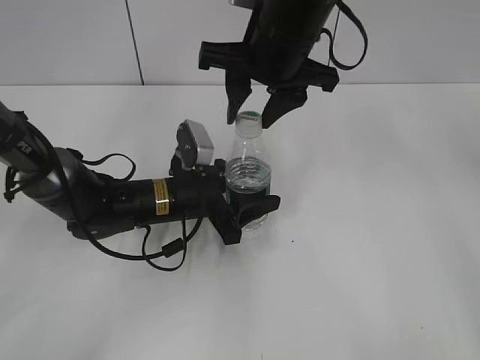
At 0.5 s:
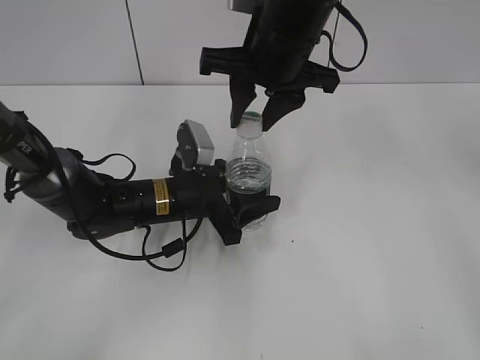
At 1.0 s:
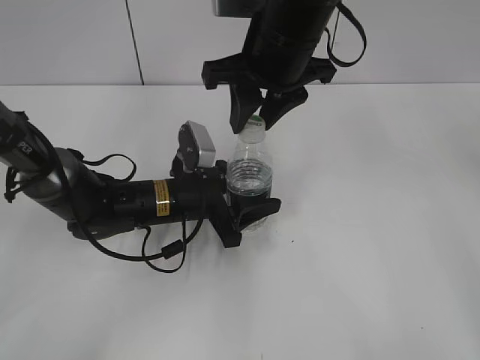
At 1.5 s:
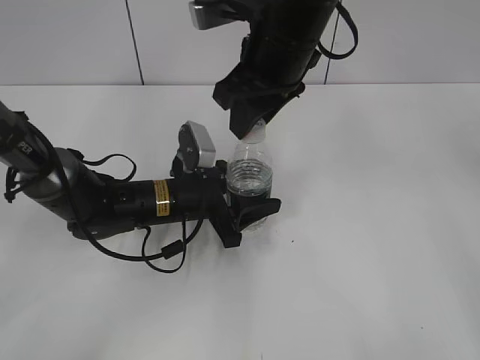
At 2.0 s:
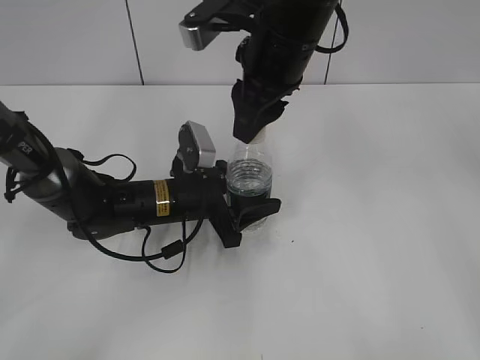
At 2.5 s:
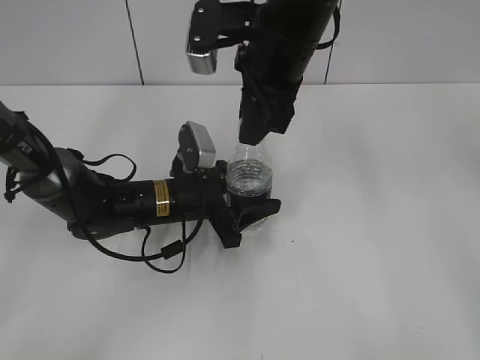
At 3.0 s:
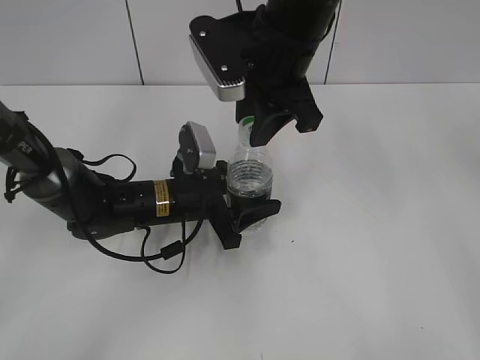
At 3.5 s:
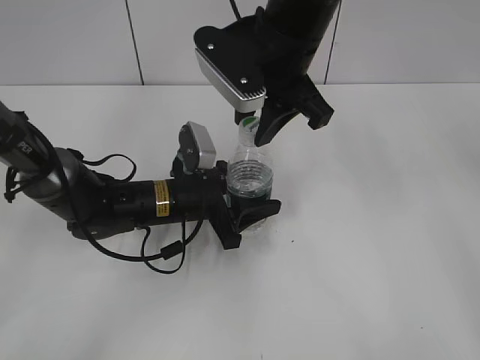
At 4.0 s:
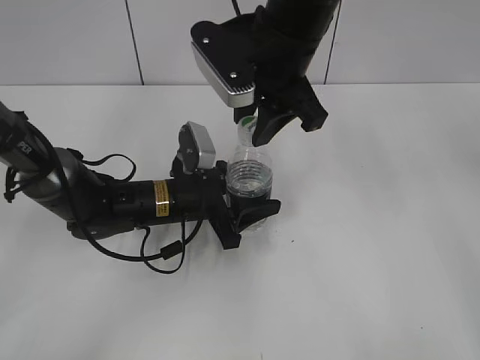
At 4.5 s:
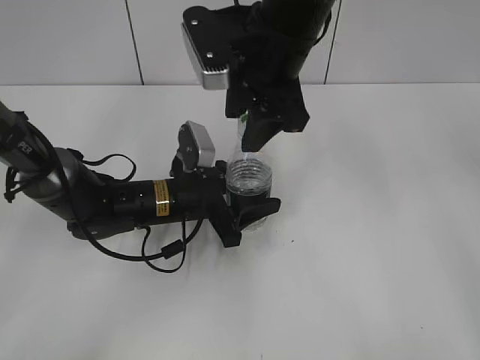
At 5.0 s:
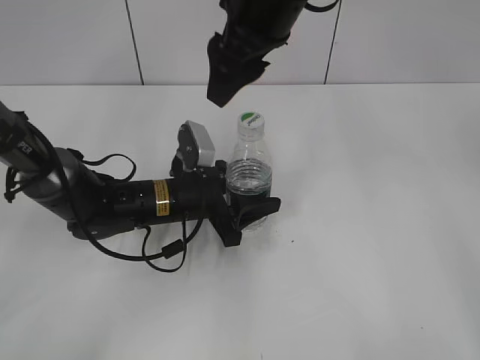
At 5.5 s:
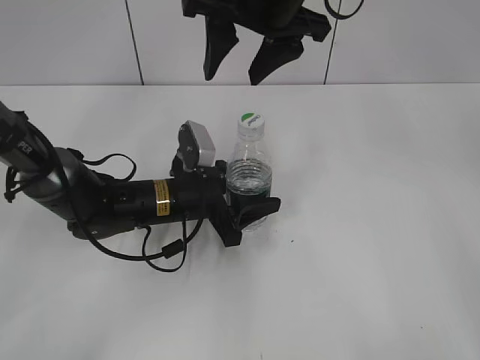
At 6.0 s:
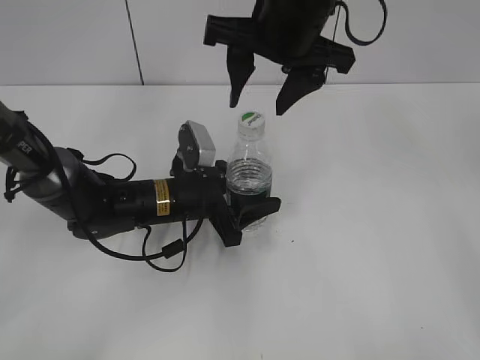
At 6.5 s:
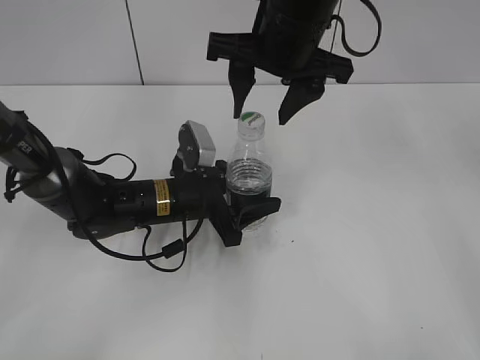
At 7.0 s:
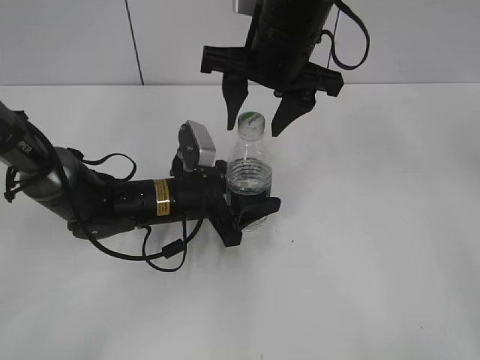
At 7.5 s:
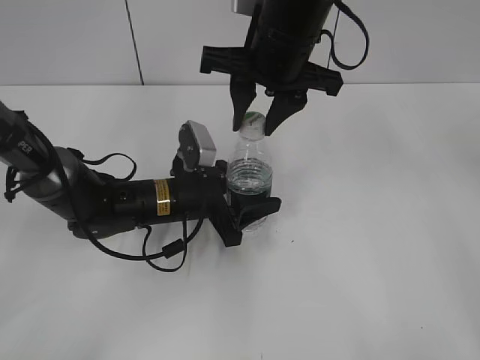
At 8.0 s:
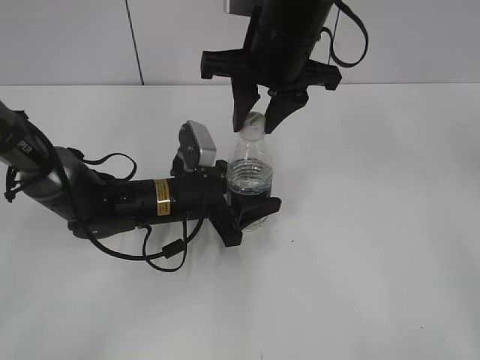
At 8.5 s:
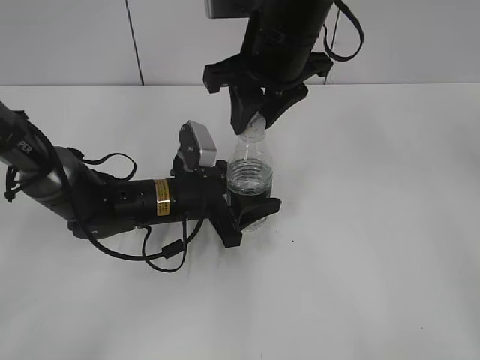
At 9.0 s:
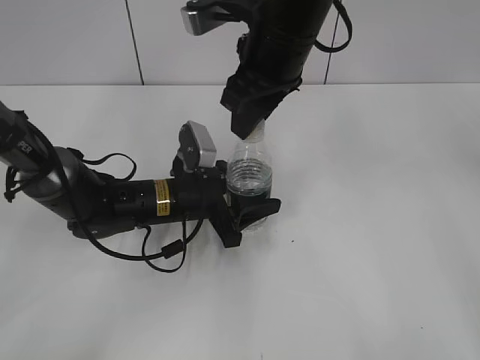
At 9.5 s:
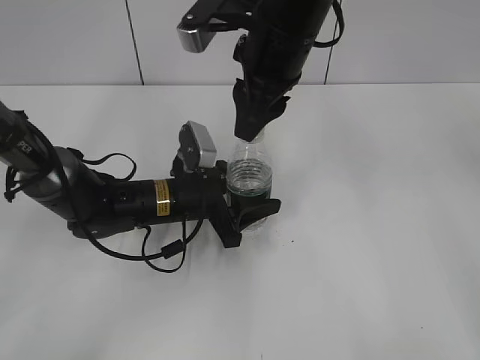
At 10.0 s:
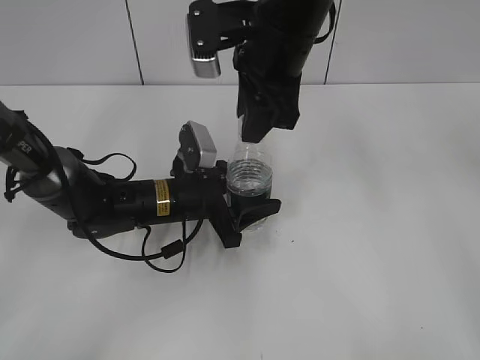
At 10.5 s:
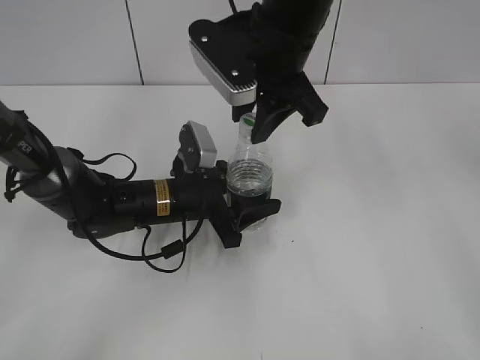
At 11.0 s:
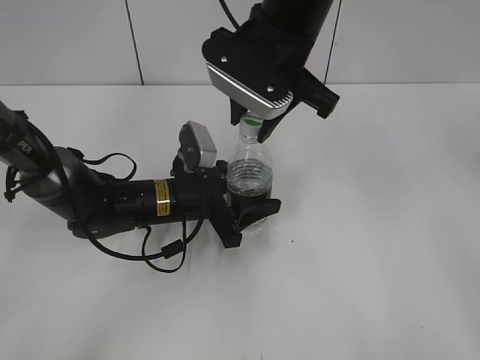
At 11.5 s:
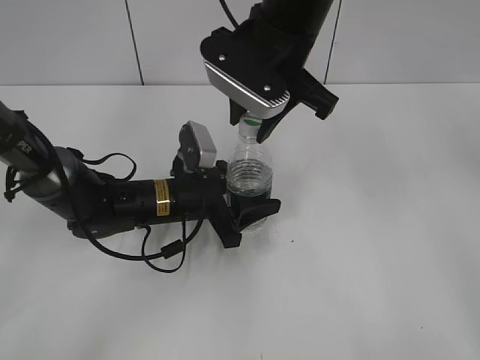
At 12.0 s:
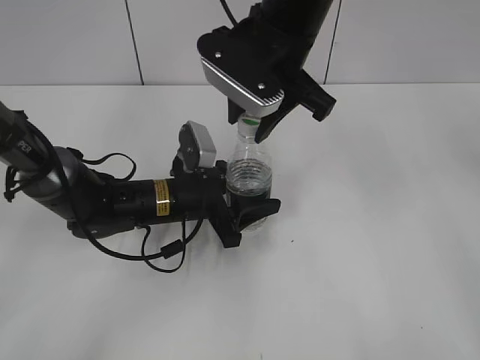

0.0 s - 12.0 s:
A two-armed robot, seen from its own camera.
4.0 s - 6.0 s: The right gripper opens its fingers.
6.0 s - 8.0 s: The right gripper closes its fingers.

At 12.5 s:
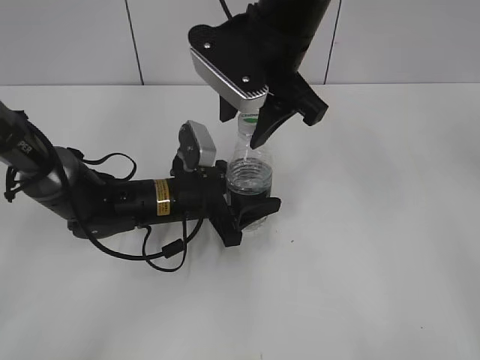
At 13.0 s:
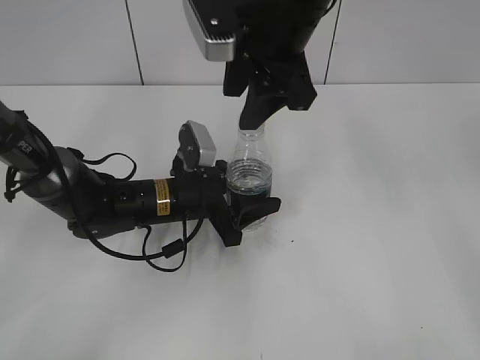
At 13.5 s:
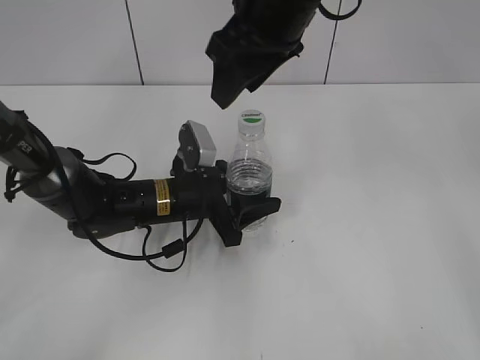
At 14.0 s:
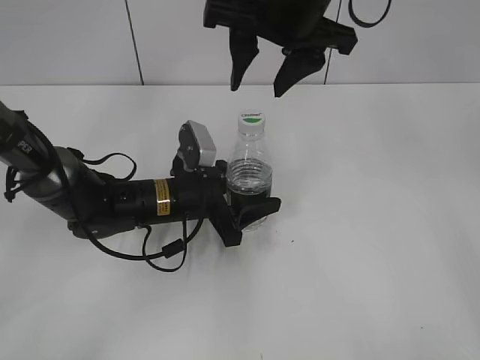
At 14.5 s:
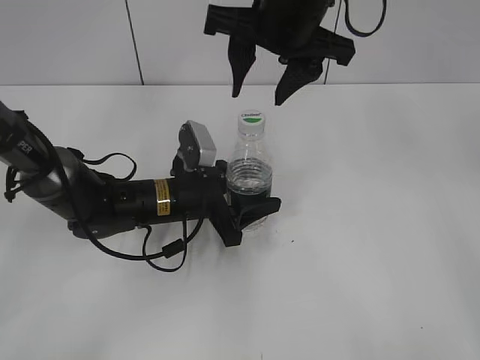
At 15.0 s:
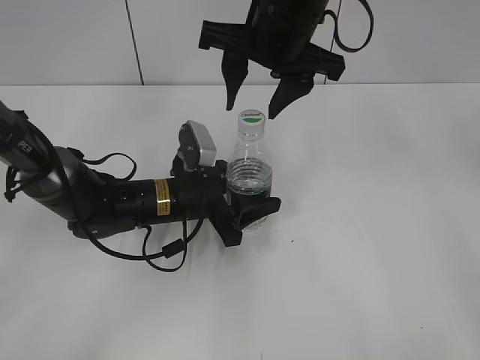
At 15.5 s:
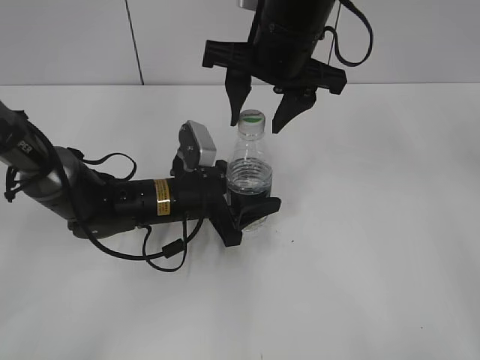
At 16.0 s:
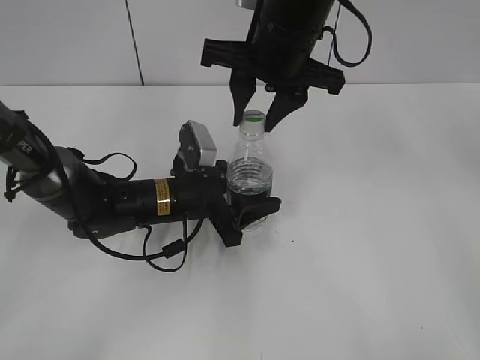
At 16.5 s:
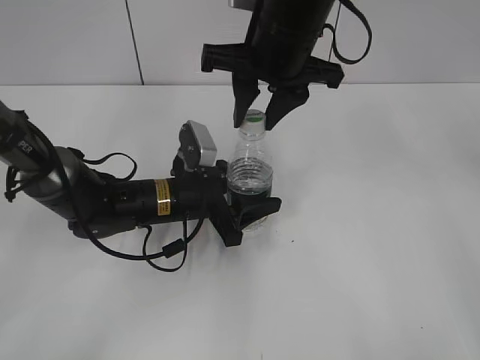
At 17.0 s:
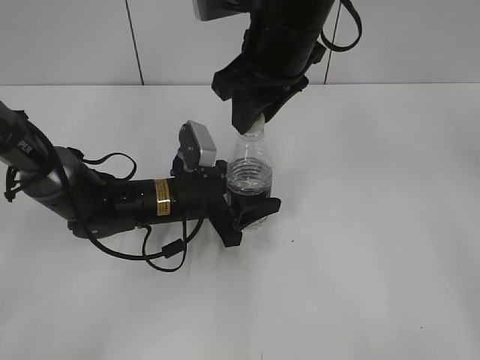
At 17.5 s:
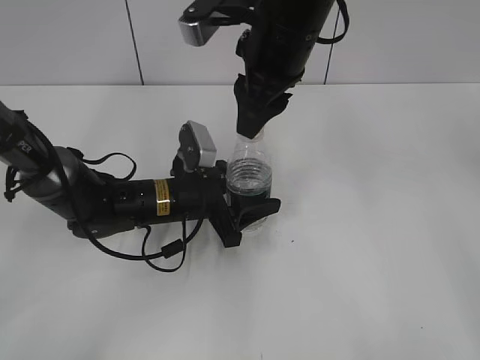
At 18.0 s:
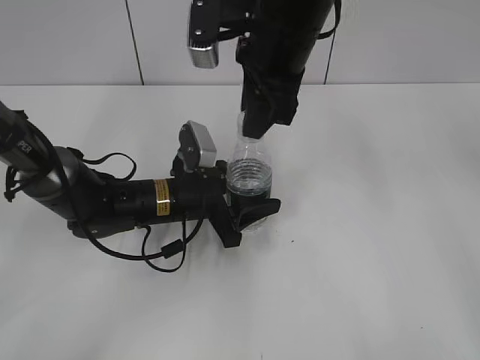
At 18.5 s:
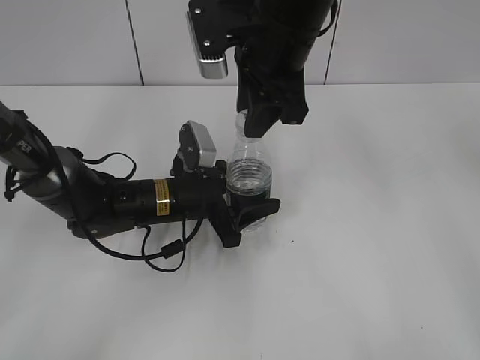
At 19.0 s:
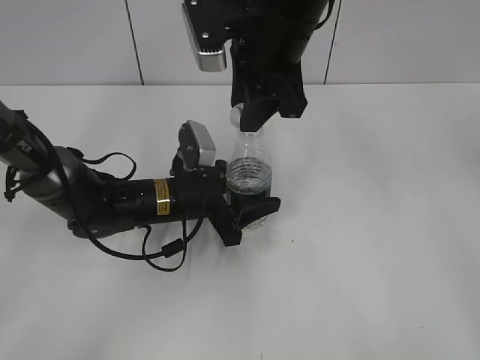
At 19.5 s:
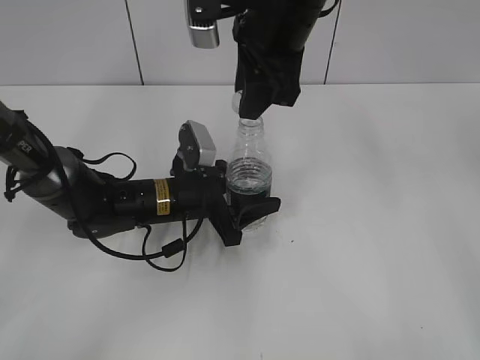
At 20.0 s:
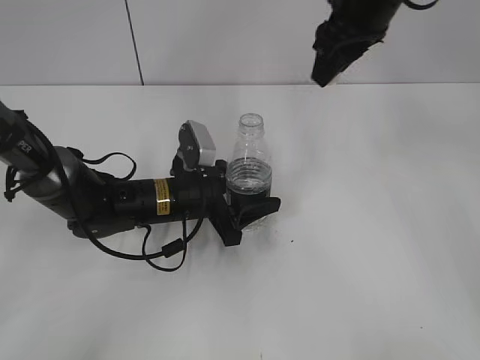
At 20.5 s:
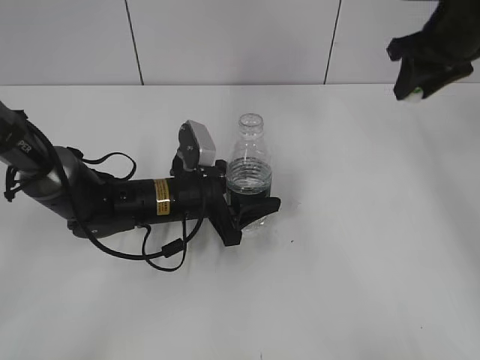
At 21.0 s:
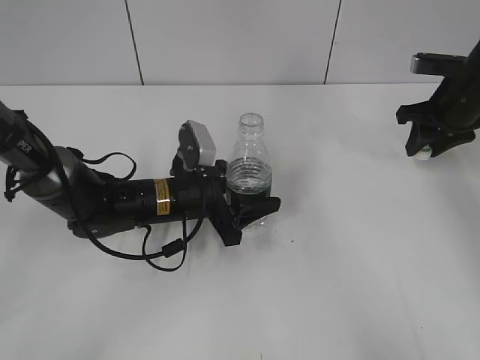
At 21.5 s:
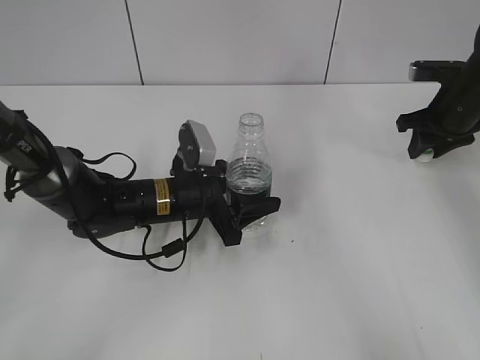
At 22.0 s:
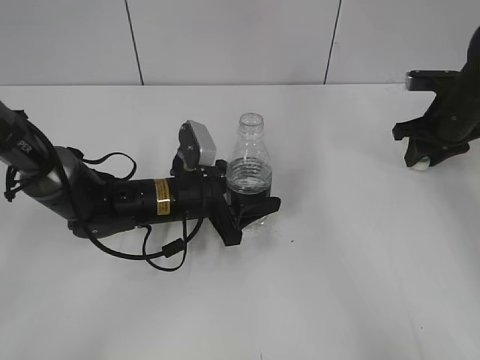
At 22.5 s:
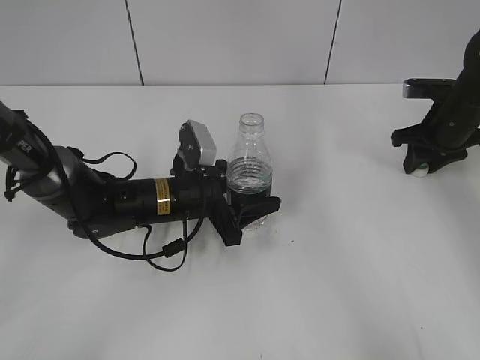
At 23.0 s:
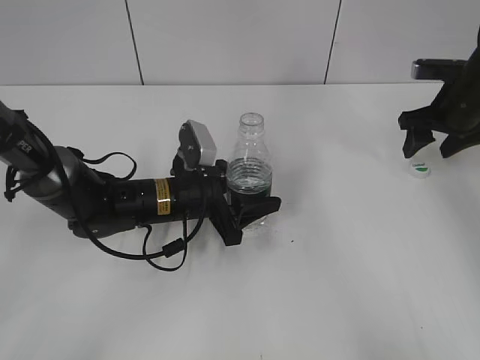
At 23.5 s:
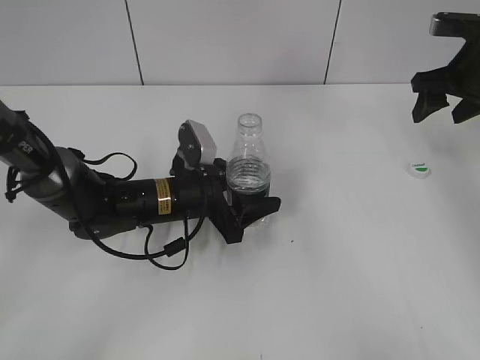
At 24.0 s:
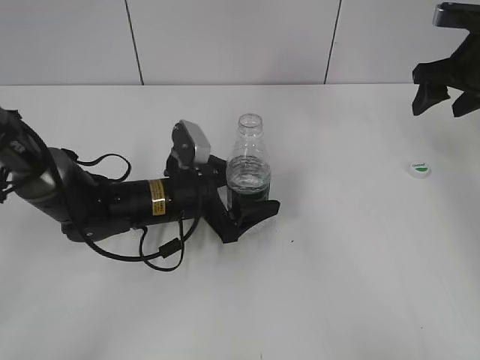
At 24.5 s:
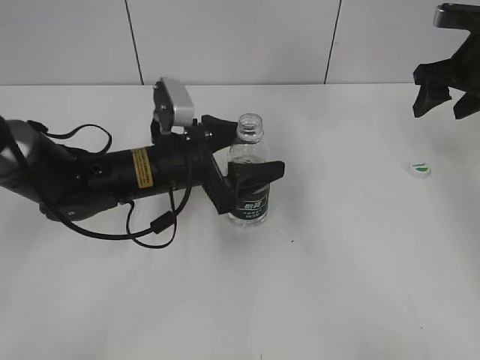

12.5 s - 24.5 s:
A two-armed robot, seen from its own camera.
Step, 12.5 s - 19.0 s: Unscrew the bottle cap with the right gripper while holding the bottle with the left gripper.
Step, 19.5 s - 22.5 s: Place the bottle cap on the table with the right gripper.
14.5 s - 16.5 s: The right gripper closes its fingers.
18.5 s - 20.5 s: The right gripper travels to the right and forward by some 25 cm.
20.5 s - 22.5 s: The right gripper shifts some 15 cm downward.
22.5 s - 24.5 s: The left gripper is displaced upward by some 5 cm, and opens. Meanwhile the right gripper moves upward, about 10 cm, and opens up.

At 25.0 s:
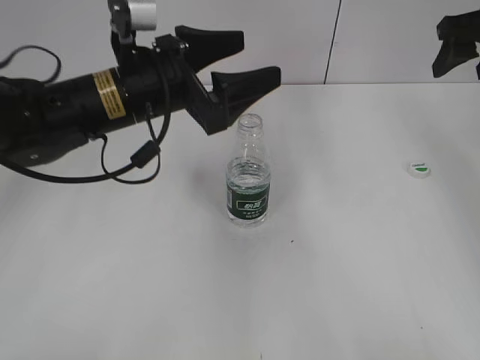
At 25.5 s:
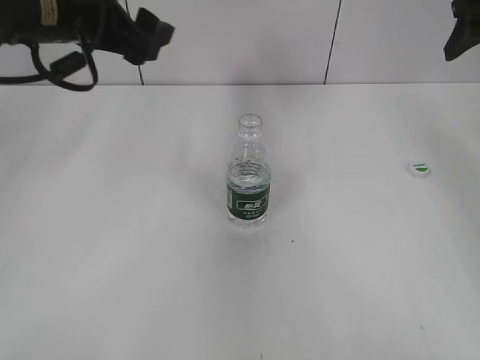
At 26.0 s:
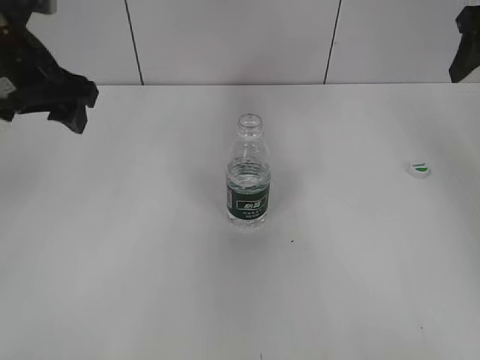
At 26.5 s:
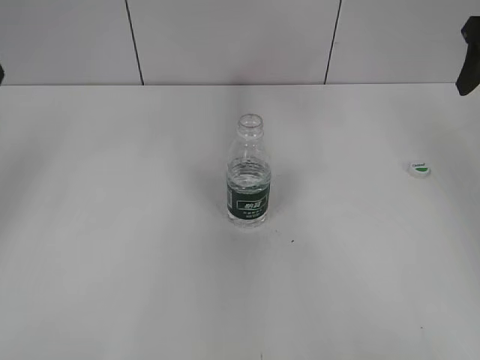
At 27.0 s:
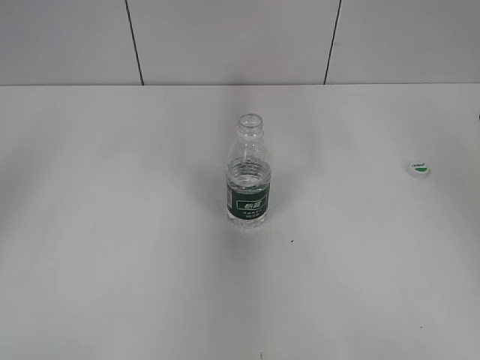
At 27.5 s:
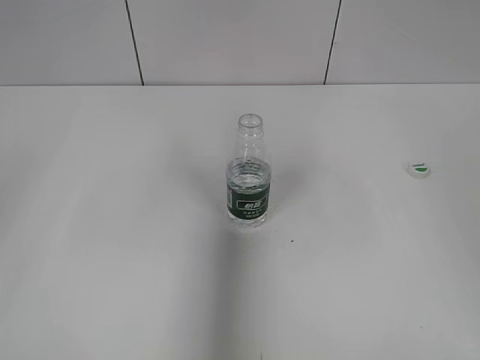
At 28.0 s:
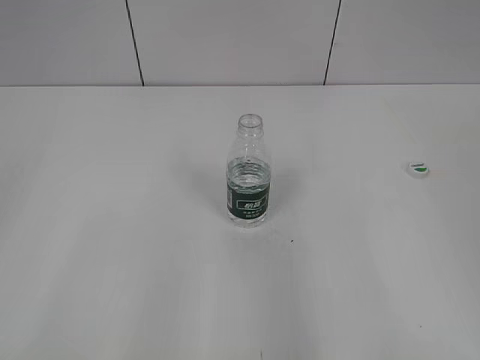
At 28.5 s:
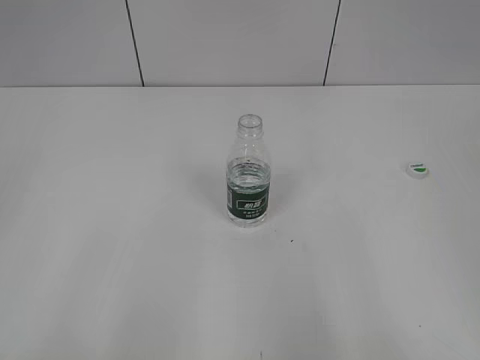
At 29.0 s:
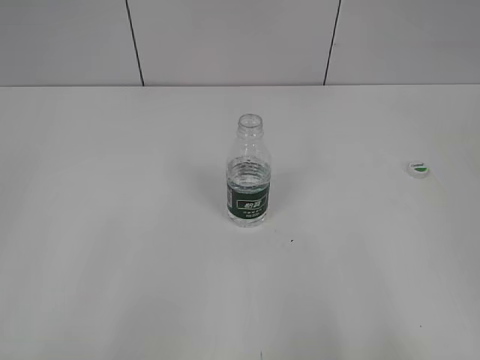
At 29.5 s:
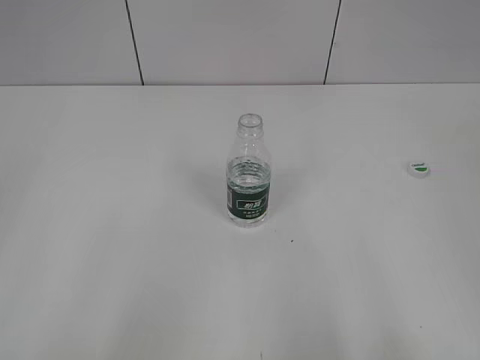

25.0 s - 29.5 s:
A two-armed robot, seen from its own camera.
25.0 s - 27.0 s: The right gripper shifts roughly 10 cm backward. The left gripper travels to the left and upward by approximately 25 cm.
27.0 s - 29.5 s: Both grippers travel together backward, roughly 30 cm.
